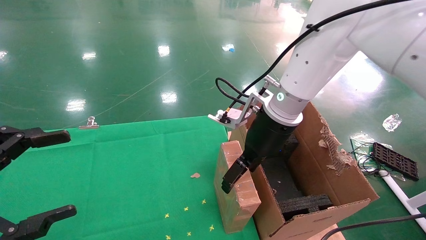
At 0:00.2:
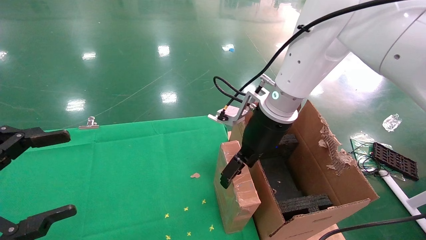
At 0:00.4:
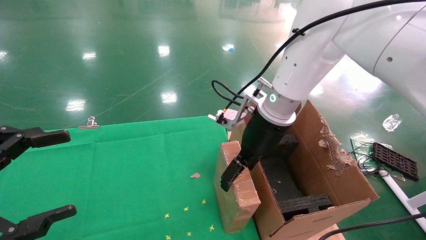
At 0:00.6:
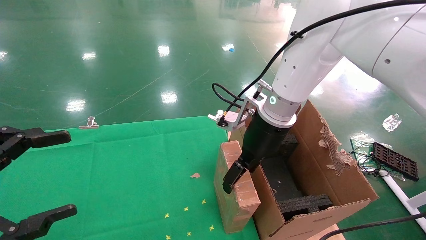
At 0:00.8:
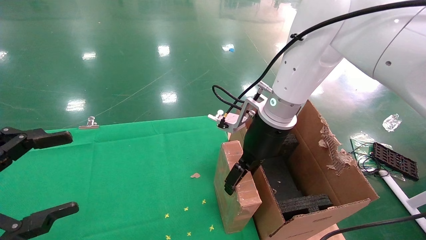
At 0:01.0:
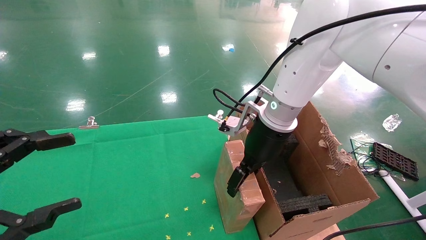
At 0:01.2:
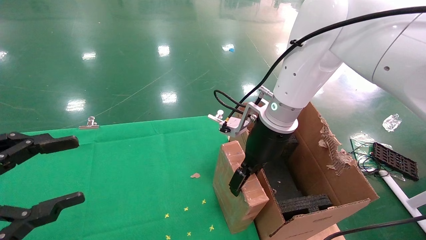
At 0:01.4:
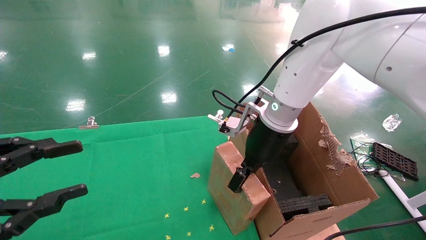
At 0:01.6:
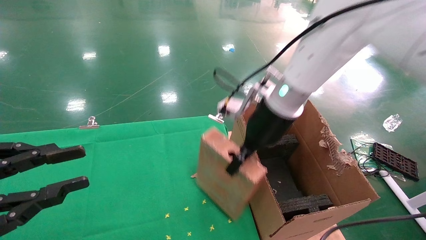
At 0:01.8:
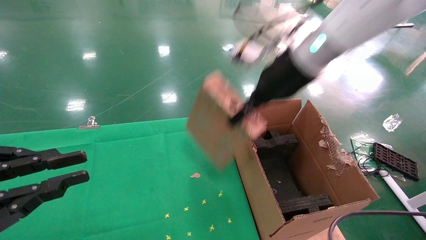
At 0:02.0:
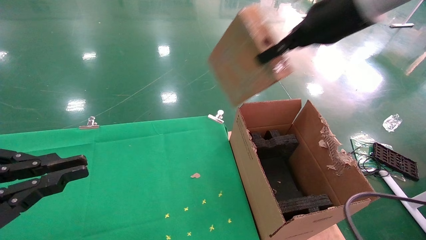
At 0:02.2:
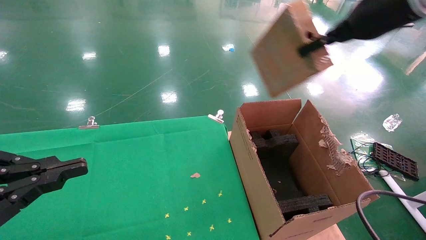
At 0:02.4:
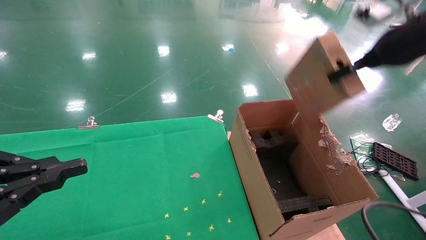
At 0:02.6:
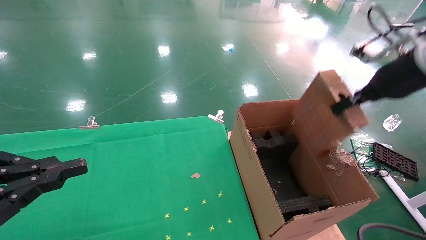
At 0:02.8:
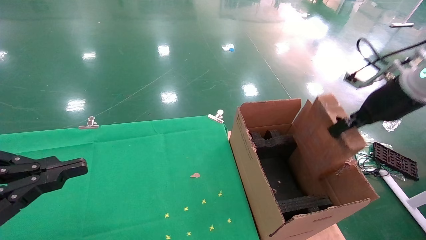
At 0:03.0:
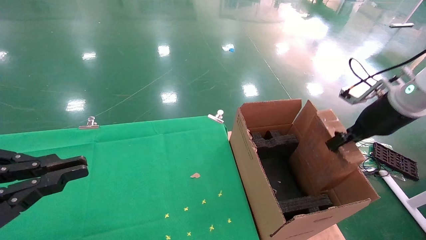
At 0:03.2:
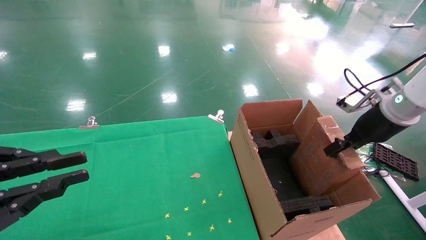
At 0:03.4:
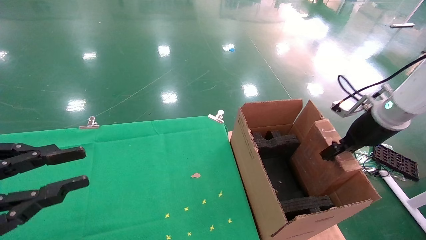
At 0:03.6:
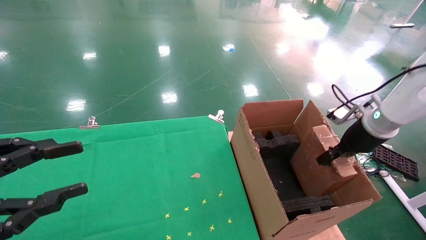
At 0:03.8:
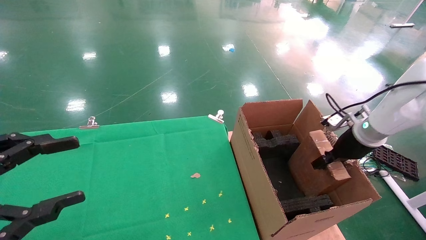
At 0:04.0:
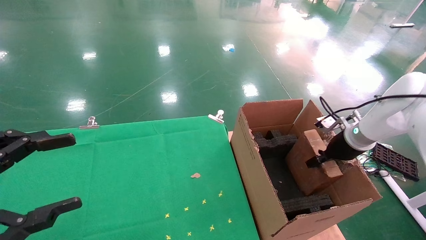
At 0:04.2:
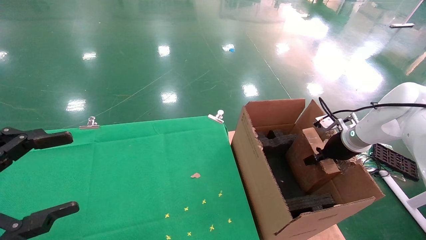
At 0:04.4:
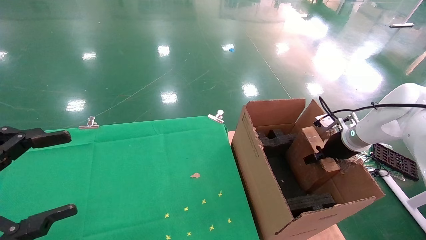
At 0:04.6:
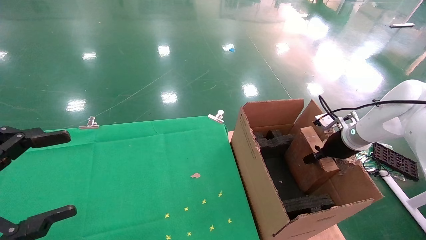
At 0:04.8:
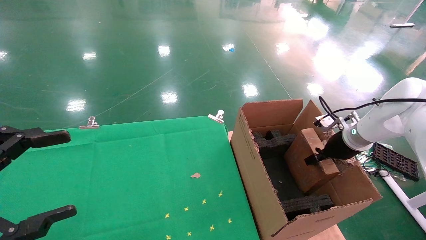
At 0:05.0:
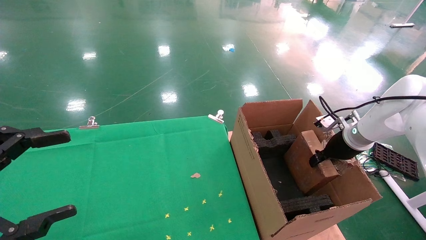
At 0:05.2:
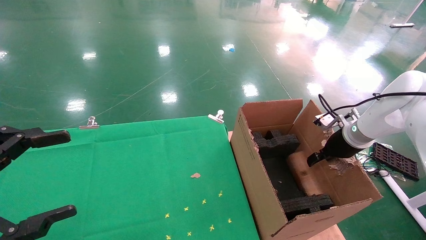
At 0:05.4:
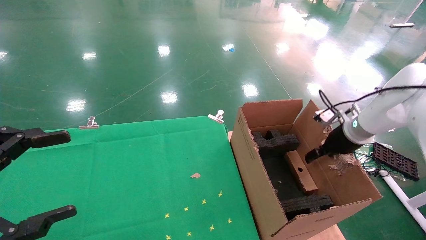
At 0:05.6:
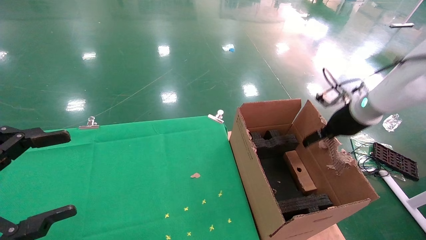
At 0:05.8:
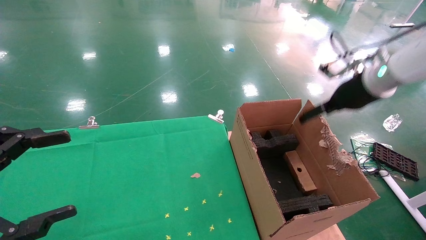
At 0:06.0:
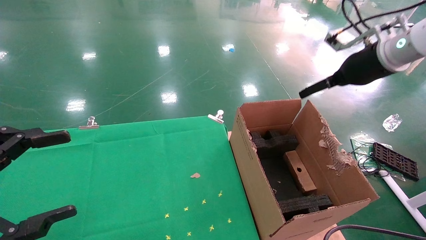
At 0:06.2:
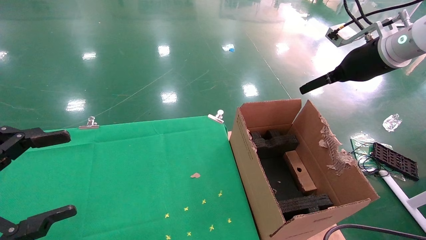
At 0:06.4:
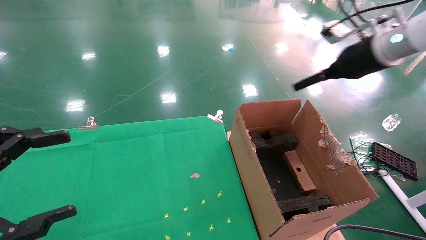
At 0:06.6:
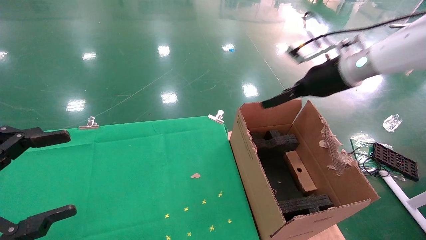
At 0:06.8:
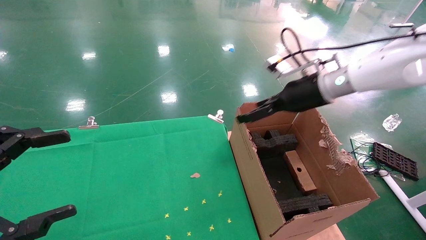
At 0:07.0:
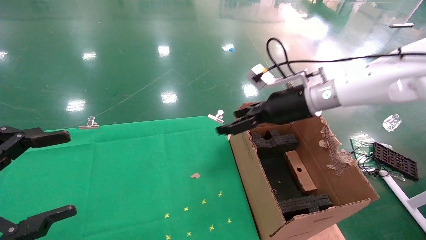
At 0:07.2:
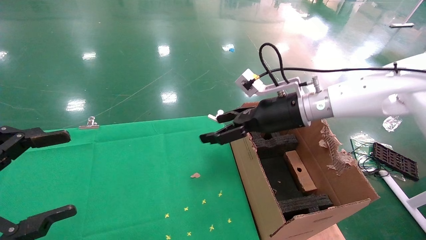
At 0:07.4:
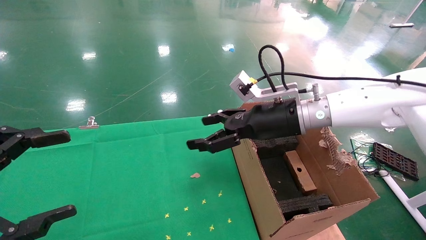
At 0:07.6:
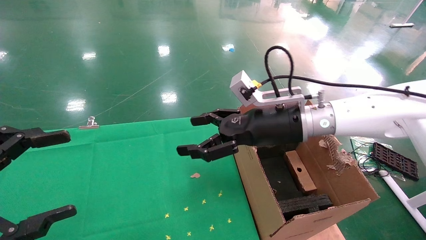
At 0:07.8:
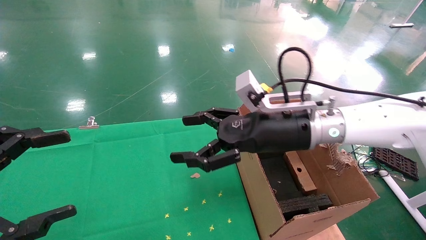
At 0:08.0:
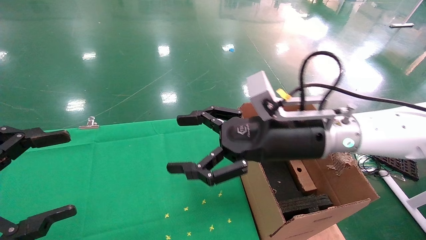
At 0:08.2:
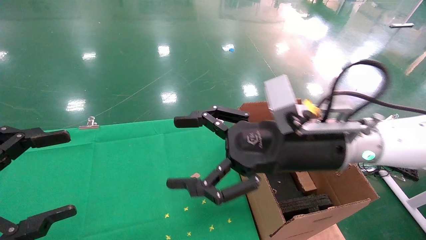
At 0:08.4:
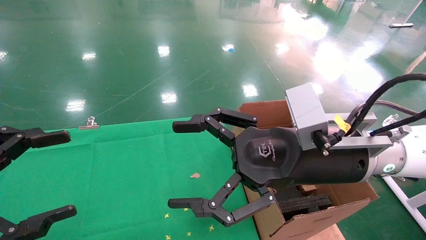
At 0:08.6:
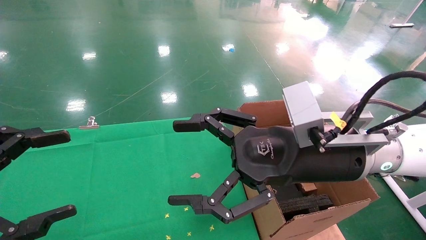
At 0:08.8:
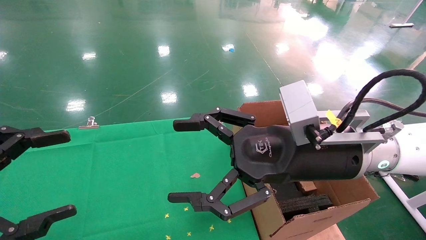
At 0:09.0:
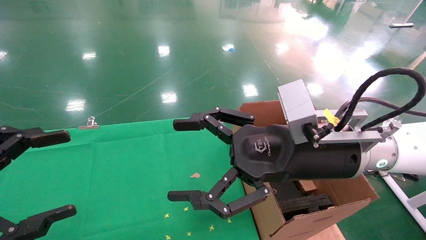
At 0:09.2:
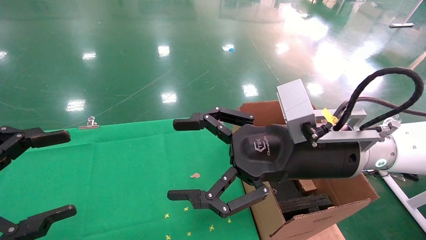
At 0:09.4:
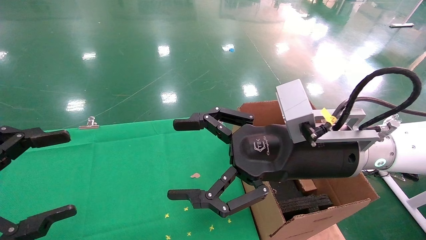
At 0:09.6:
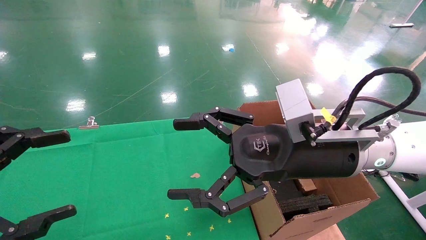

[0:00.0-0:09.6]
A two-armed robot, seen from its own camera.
Task of the whole recording: using a robotic arm to pick up a cardboard box and palace it the carton.
Step, 0:01.4 to 0:05.4: Place the mouse and the power cord paper box into the container.
0:00.0 to 0:01.6: The right gripper closes up. The left gripper closes.
0:01.6 to 0:03.2: The right gripper goes roughly 25 cm to the right. The left gripper closes its fingers.
0:03.2 to 0:04.8: The left gripper opens up. The right gripper moves downward and forward, about 10 cm.
0:04.8 to 0:06.4: The right gripper goes some 20 cm upward, and opens its fingers.
0:06.4 to 0:08.0: The right gripper is displaced to the left, backward and downward by roughly 20 cm.
0:08.0 to 0:09.6: The grippers make only small movements.

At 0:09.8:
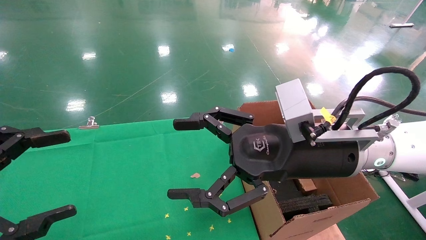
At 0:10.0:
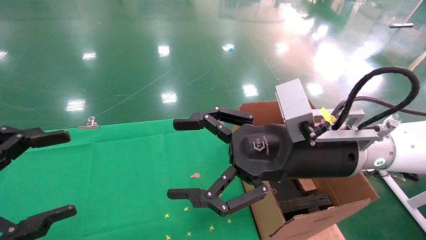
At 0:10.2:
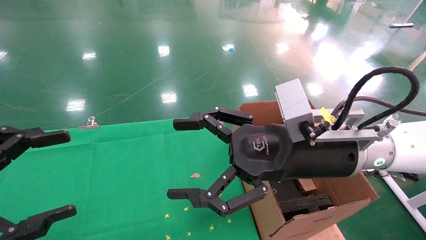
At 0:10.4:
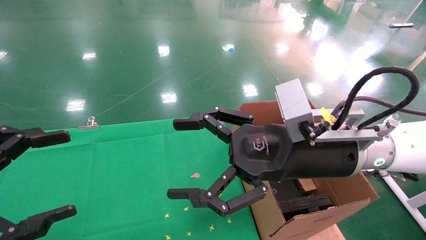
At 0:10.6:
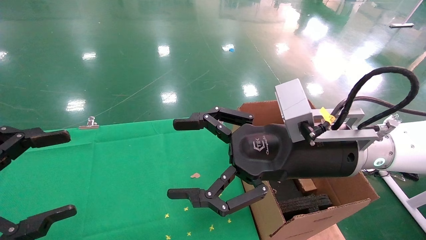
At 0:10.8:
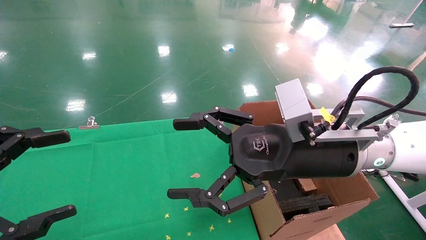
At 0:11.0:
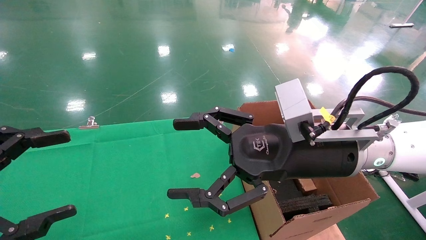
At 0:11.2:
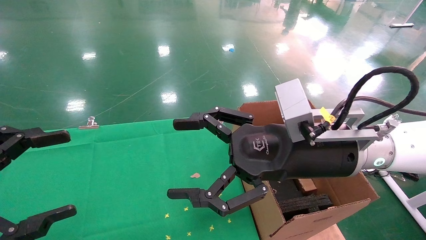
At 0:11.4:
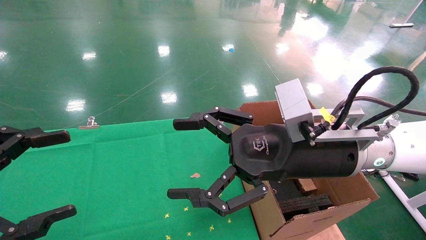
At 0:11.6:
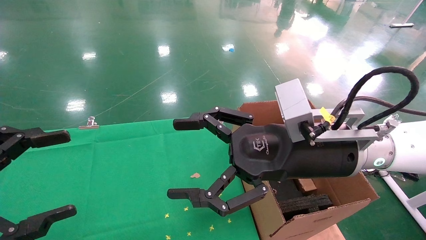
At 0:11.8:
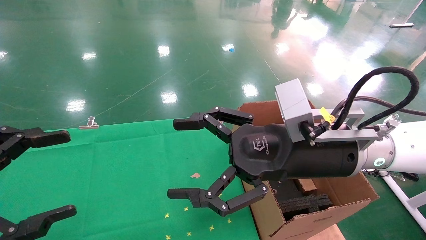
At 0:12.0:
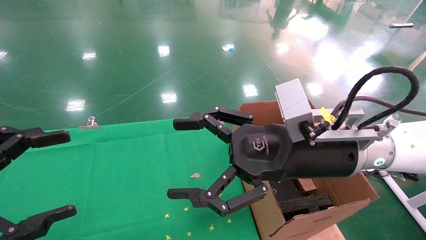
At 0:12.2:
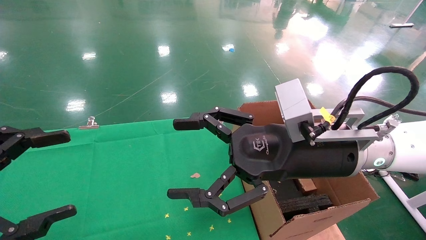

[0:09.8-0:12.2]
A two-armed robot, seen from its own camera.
Task of the whole recording: using a robotic arm to pick up a cardboard box and palace it the carton.
0:09.8 to 0:12.2: Both grippers stay about where they are.
